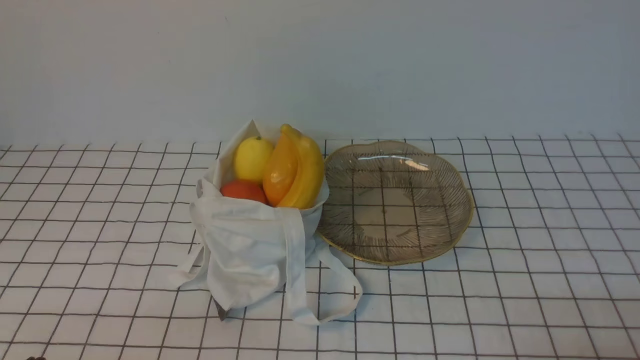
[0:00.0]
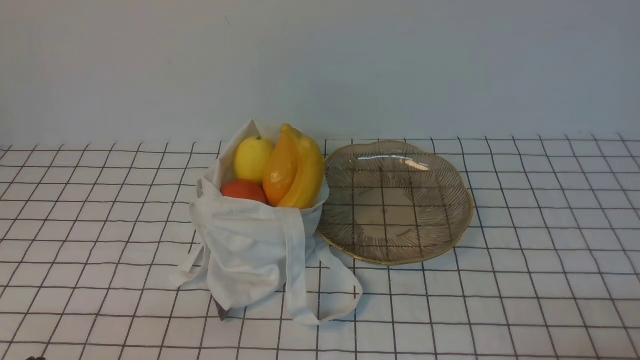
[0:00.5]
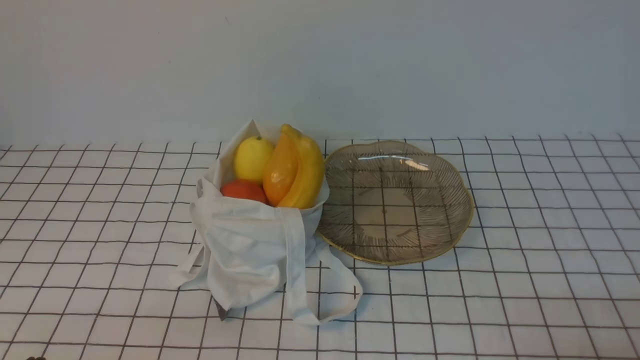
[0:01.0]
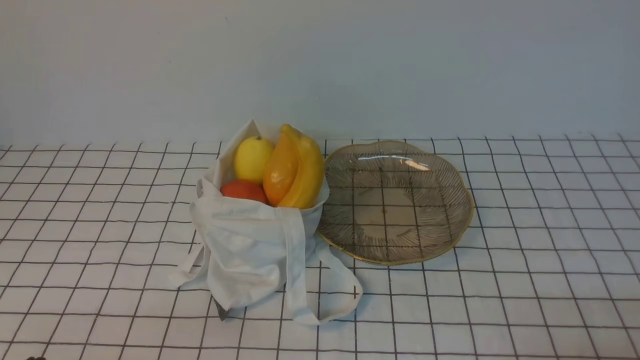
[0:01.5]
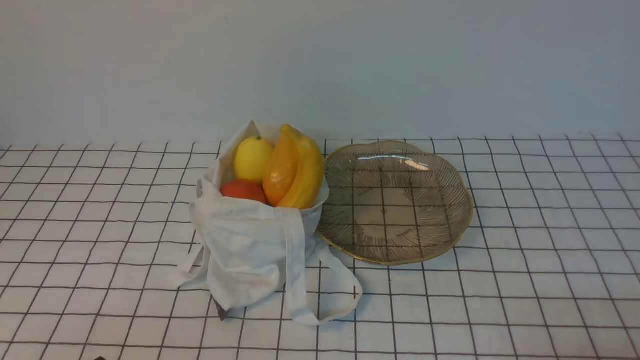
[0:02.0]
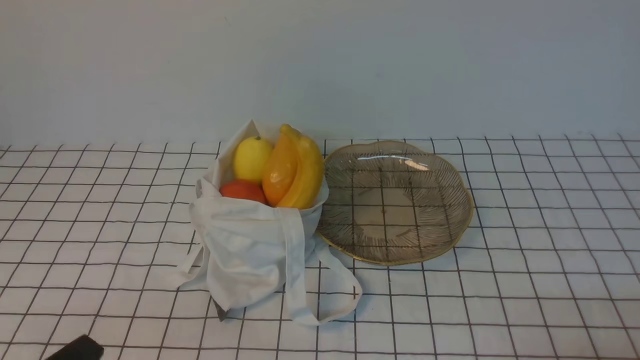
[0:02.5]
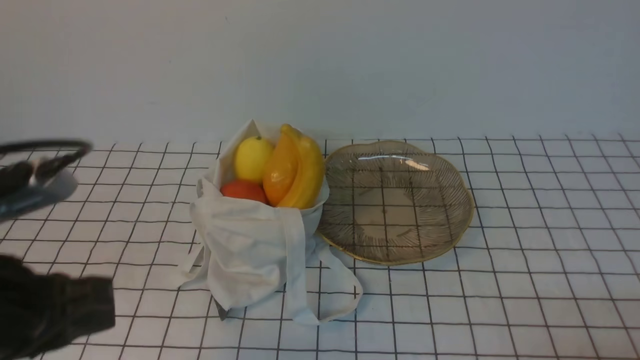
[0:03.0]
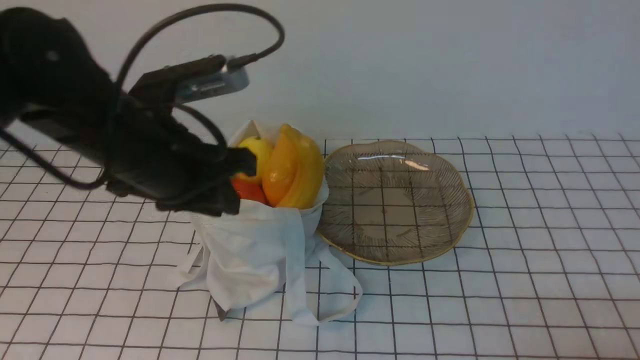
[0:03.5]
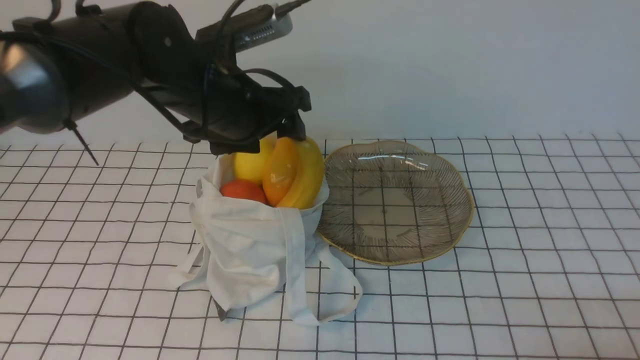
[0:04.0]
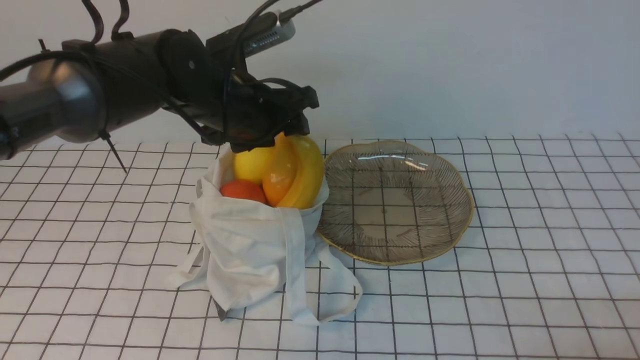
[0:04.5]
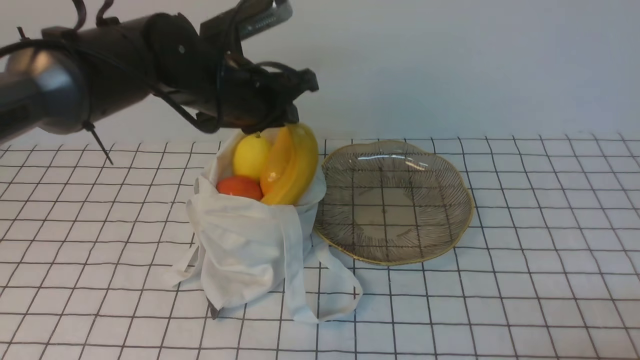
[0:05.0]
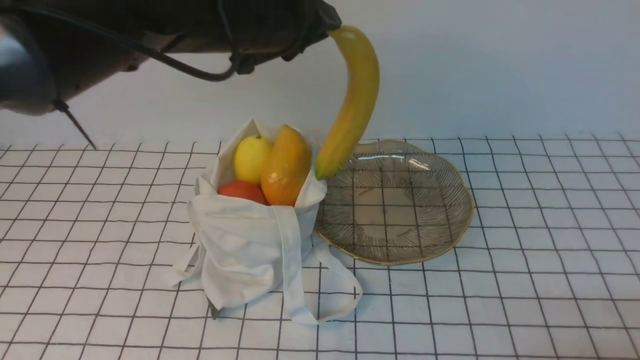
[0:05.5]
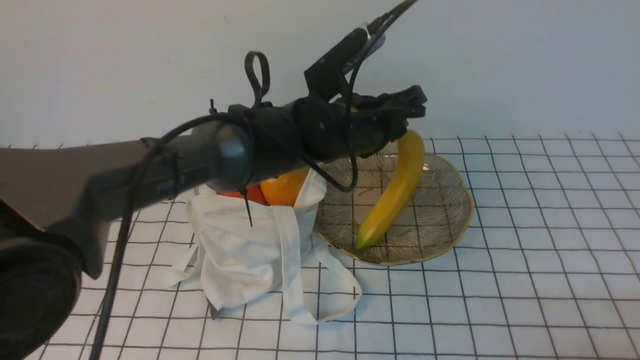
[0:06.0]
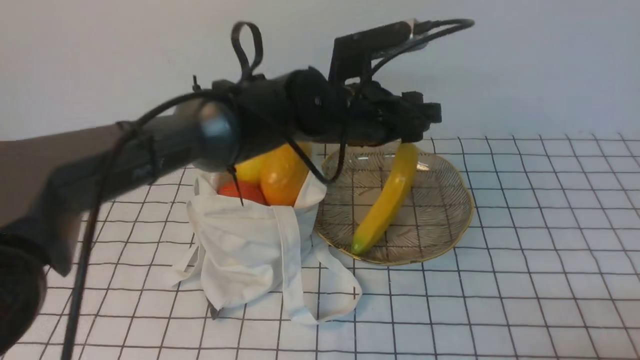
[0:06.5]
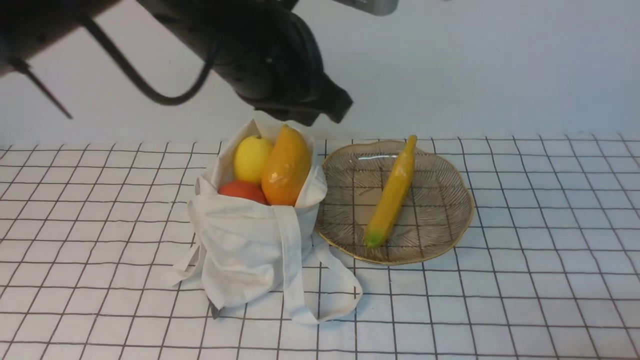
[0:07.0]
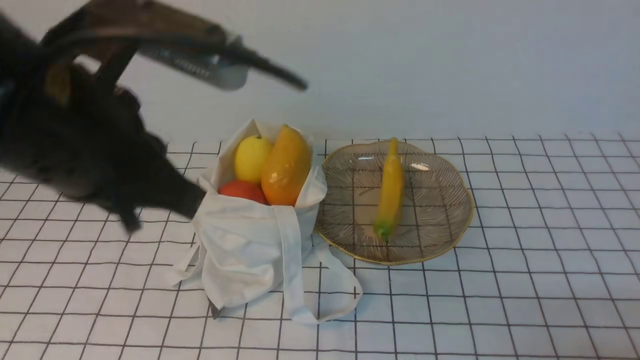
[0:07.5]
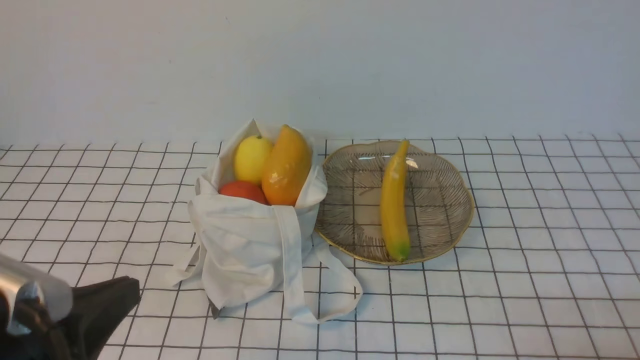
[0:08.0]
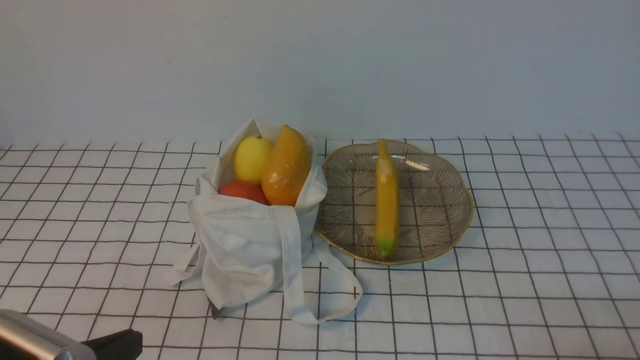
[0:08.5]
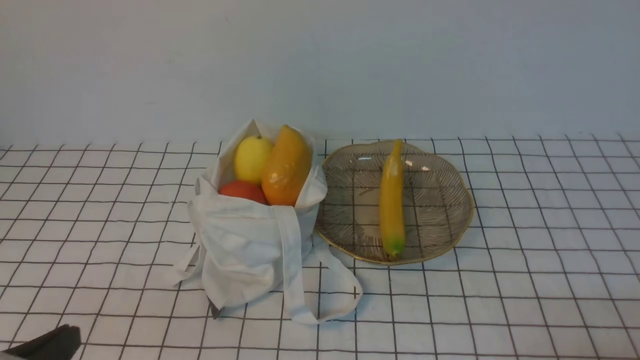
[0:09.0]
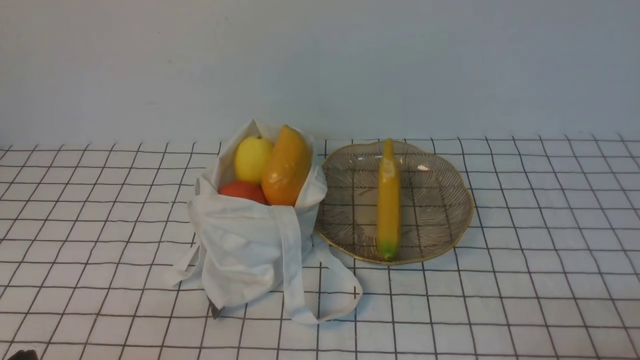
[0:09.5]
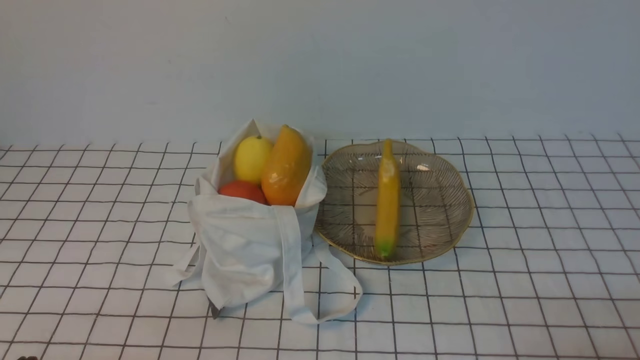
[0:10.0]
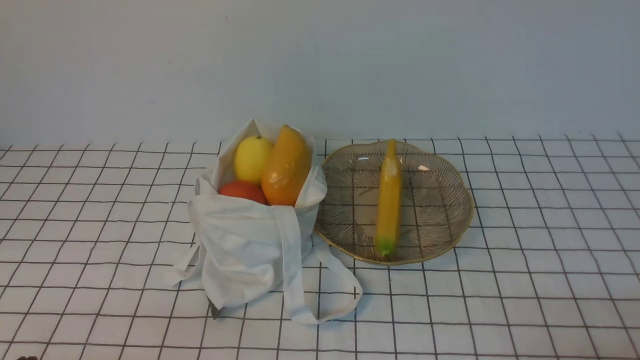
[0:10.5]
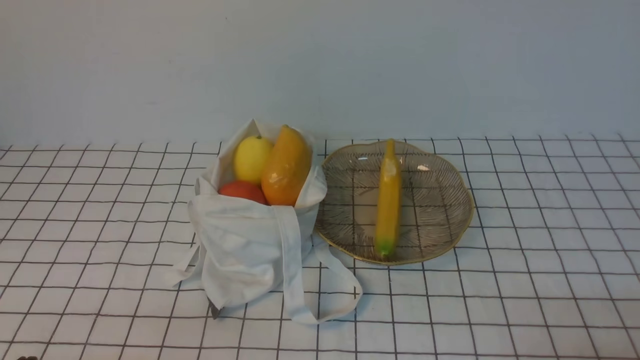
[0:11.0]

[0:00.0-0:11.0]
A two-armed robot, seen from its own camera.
Step, 0:00.0 to 0:04.5: use the left arm to grab a banana from the bag.
Step, 0:05.0 to 0:06.0: use the left arm to put the banana into the empty plate on the right.
0:02.0 to 0:03.5: The left gripper travels forward and upward by about 25 cm.
0:03.5 to 0:05.5: The left gripper shifts roughly 15 cm forward and to the right, and opens, then closes again.
0:05.5 to 0:07.5: The left gripper shifts approximately 15 cm backward, and opens and closes again.
0:07.5 to 0:09.0: The left gripper moves downward, backward and to the left, some 25 cm.
0:09.0 to 0:11.0: The left gripper ends up some 5 cm from where it was.

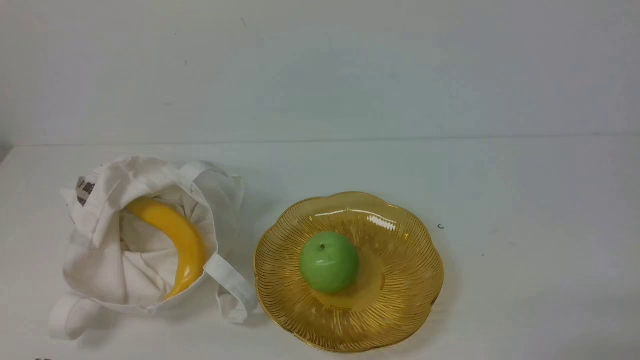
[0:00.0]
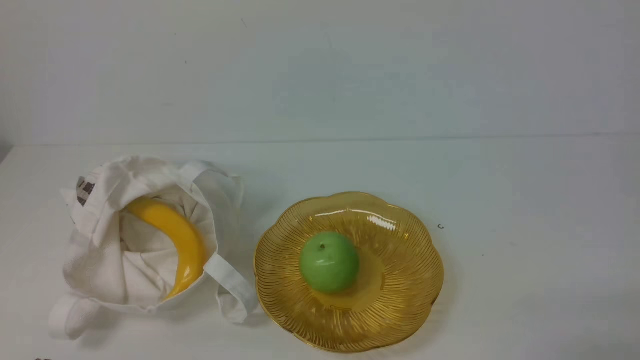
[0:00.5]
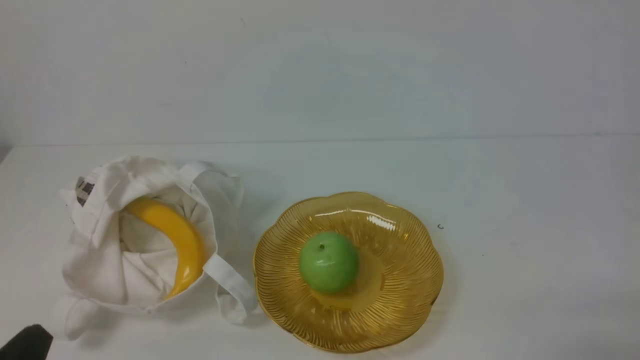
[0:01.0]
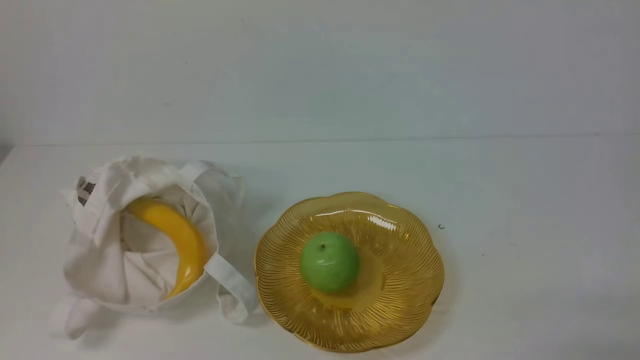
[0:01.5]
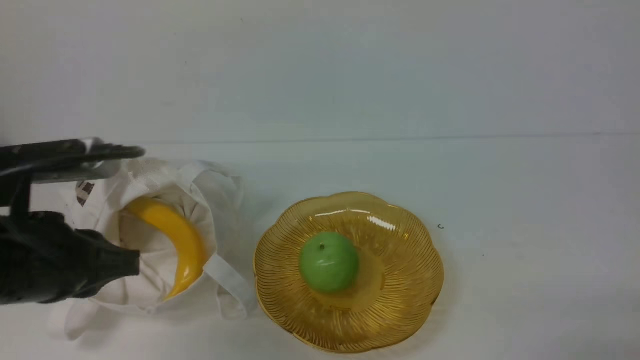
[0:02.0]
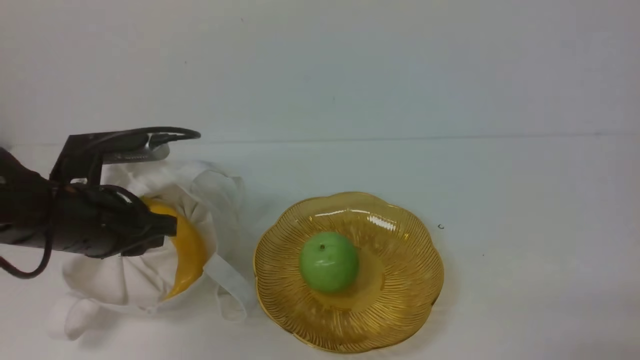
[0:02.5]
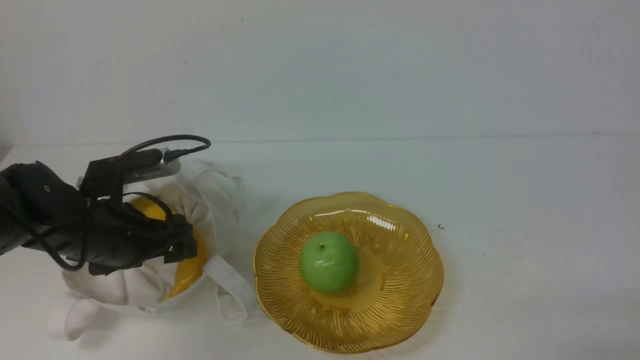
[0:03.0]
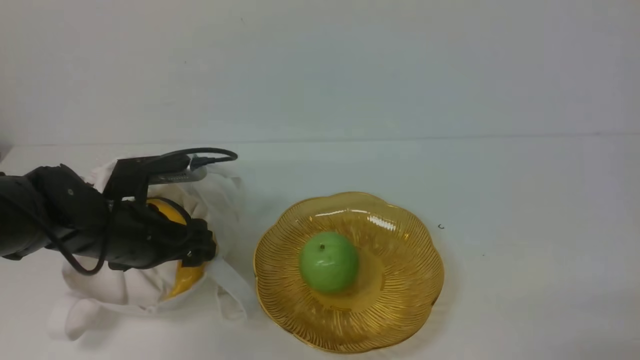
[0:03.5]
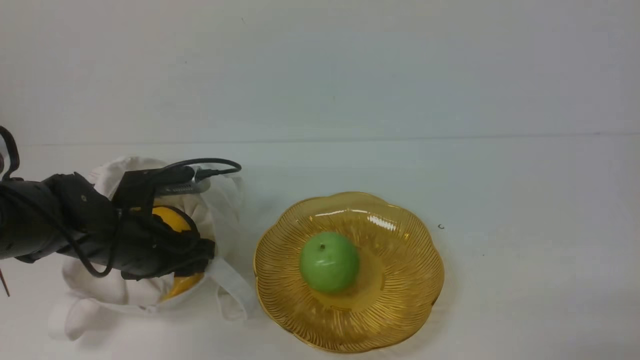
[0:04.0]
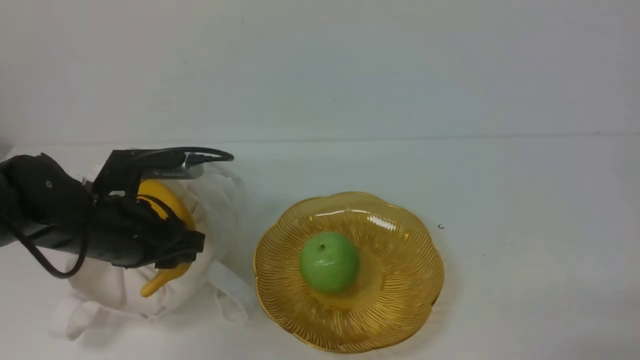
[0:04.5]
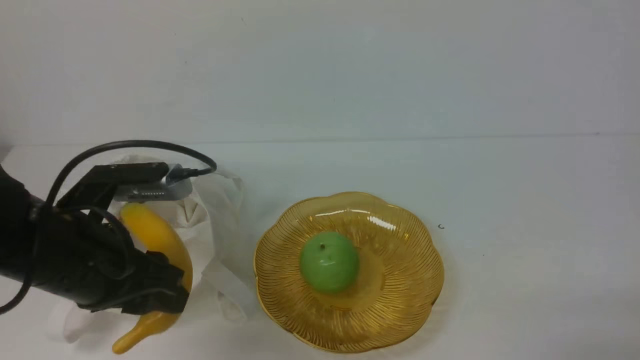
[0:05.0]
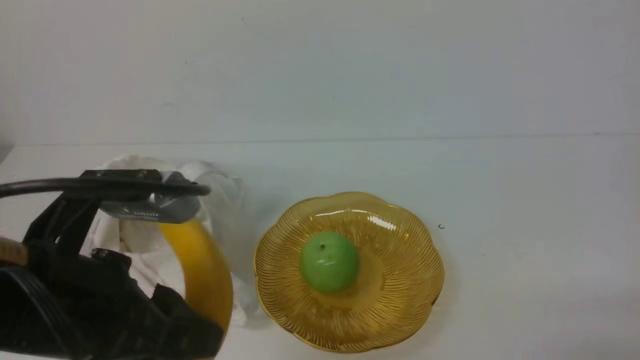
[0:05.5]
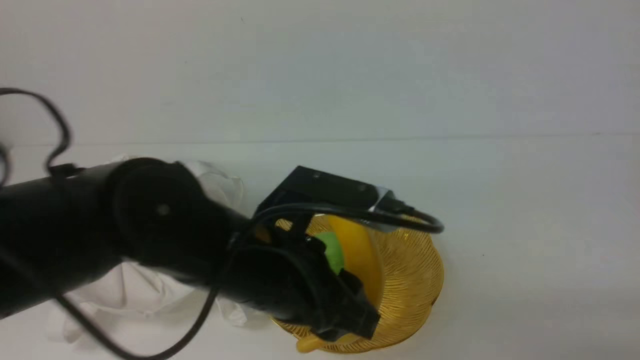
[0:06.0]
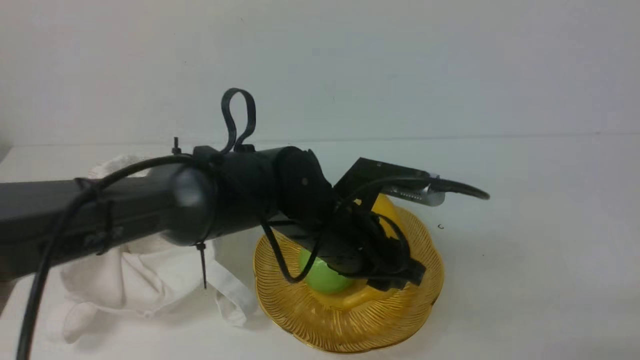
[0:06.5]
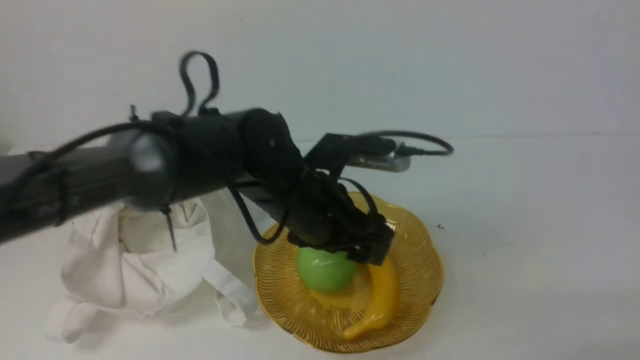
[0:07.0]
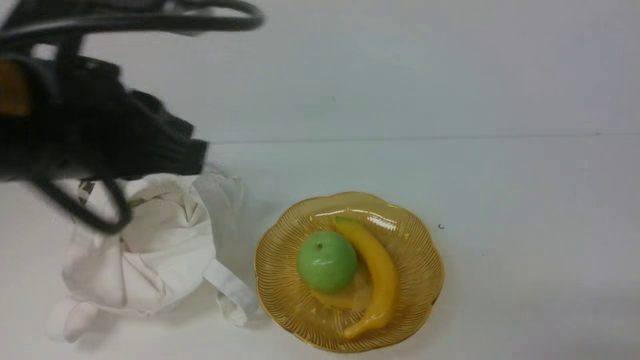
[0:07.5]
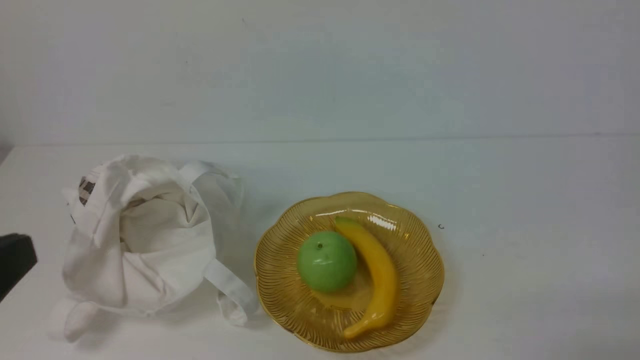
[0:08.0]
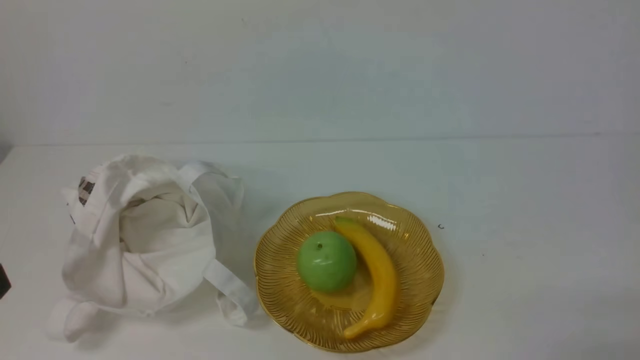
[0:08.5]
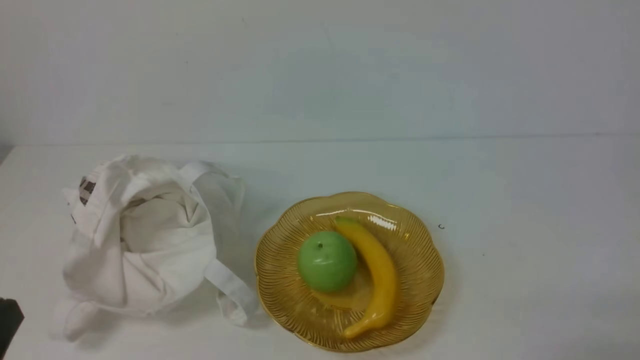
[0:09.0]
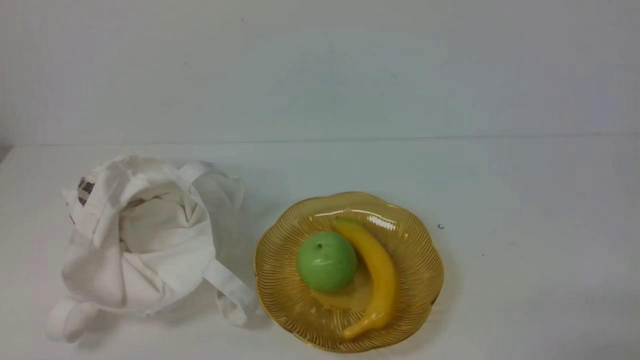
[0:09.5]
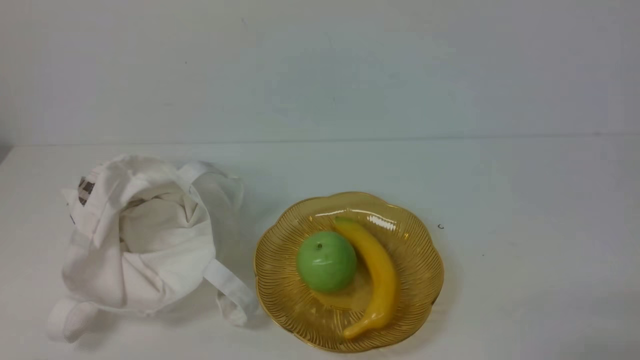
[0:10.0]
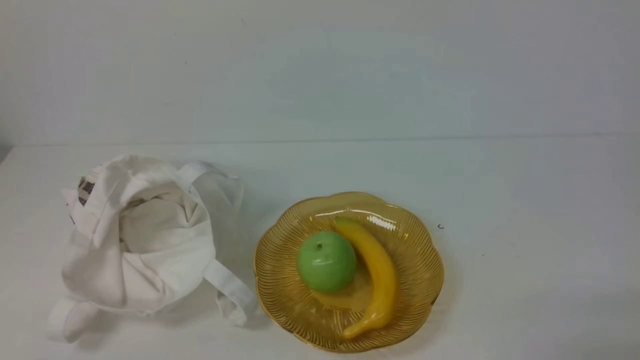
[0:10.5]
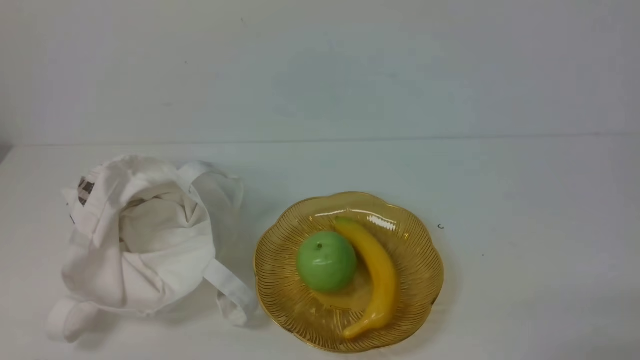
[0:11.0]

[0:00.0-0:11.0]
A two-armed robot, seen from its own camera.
Step, 0:00.0 to 0:04.5: use the left arm to grab a banana from the bag.
Step, 0:05.0 to 0:06.5: use the left arm to put the banana into the empty plate on the right.
0:00.0 to 0:02.0: The left gripper shifts some 20 cm forward and upward.
0:02.0 to 0:03.5: The left gripper is displaced forward and downward by about 15 cm, and opens its fingers.
0:03.5 to 0:05.5: The left gripper shifts approximately 20 cm backward and upward, and closes its fingers.
0:05.5 to 0:07.5: The left gripper goes about 10 cm upward, and closes its fingers.
0:07.5 to 0:09.0: The left gripper shifts approximately 20 cm downward, backward and to the left.
